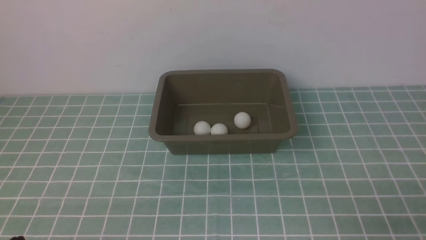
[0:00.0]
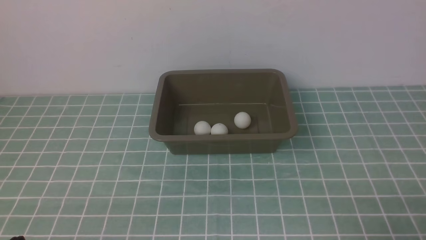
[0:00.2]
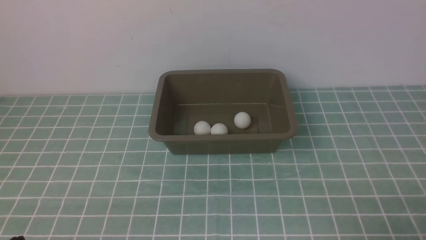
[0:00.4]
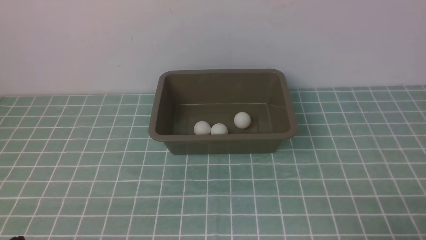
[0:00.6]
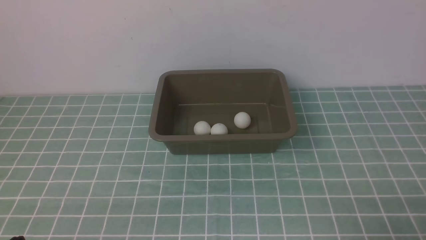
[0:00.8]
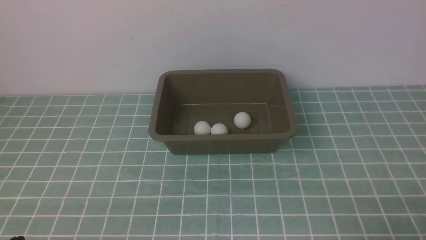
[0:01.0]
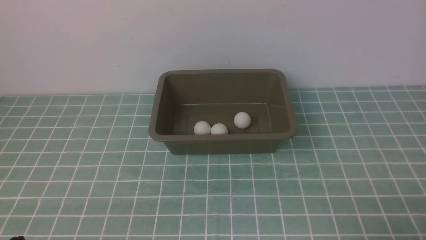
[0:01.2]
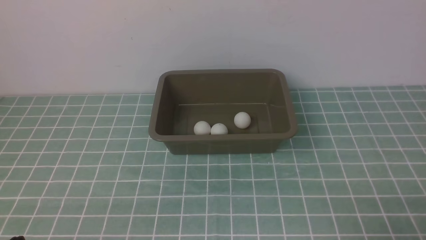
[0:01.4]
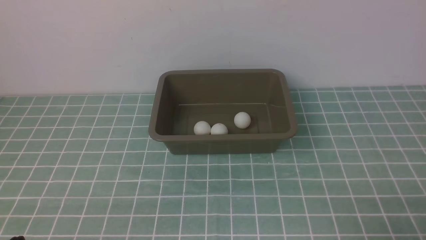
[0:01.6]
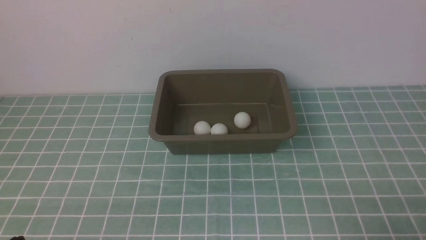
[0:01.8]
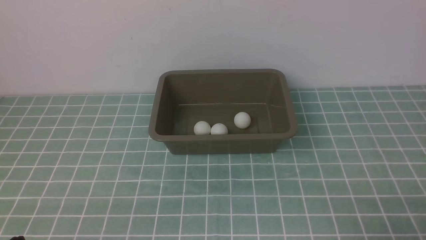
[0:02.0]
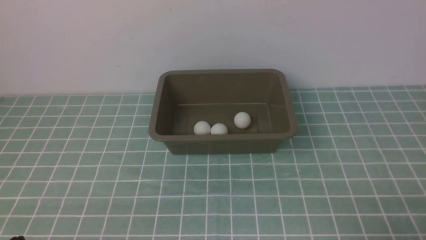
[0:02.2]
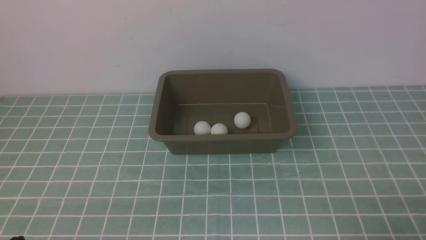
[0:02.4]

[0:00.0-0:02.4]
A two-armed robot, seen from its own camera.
1.2 to 2.4 s: Both grippers stay about where they are.

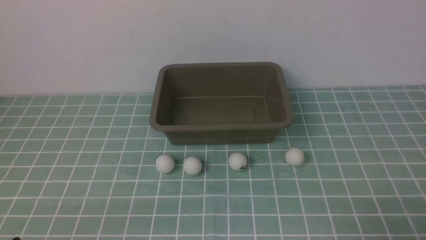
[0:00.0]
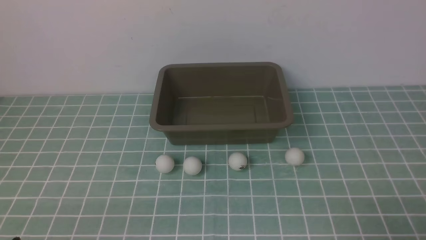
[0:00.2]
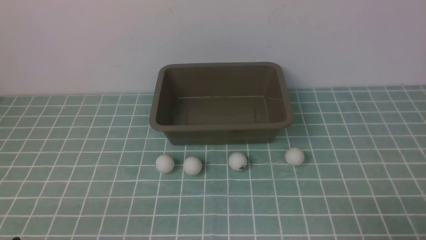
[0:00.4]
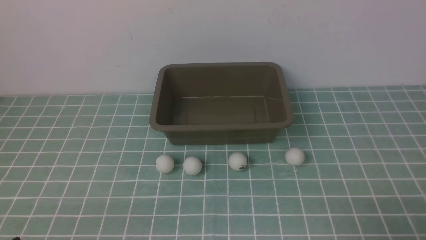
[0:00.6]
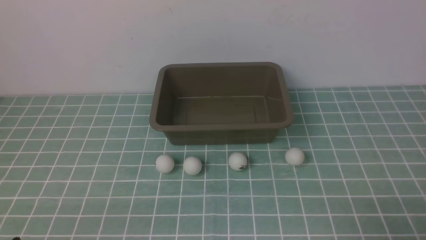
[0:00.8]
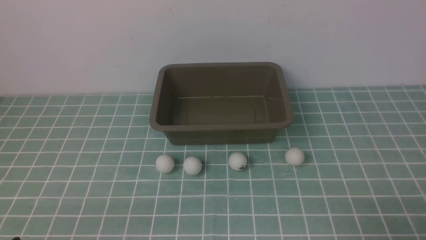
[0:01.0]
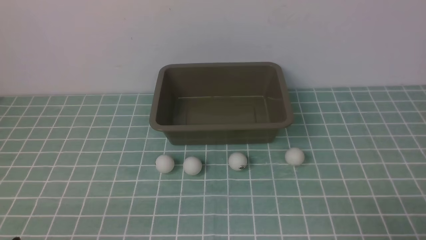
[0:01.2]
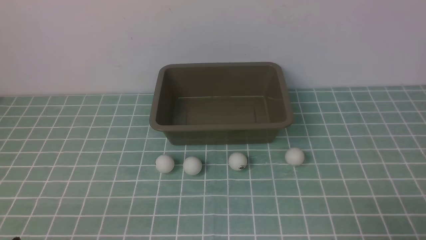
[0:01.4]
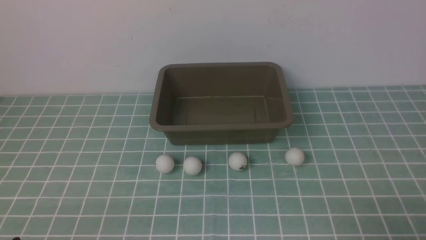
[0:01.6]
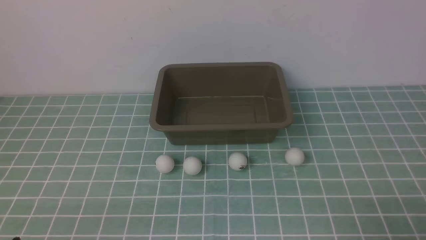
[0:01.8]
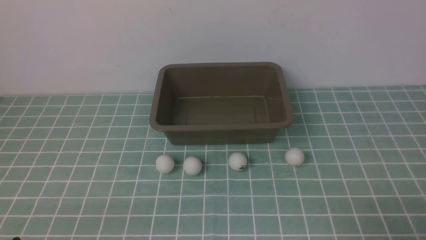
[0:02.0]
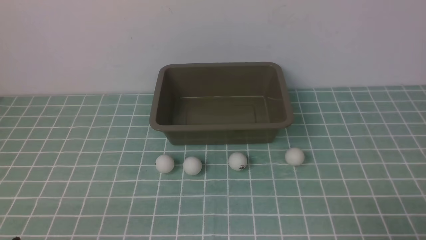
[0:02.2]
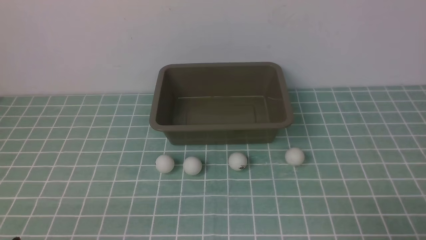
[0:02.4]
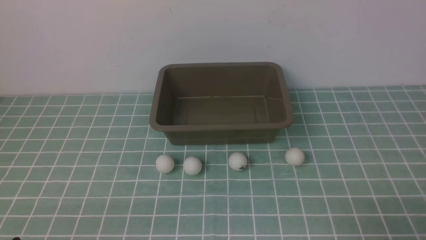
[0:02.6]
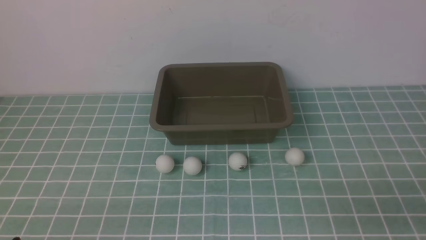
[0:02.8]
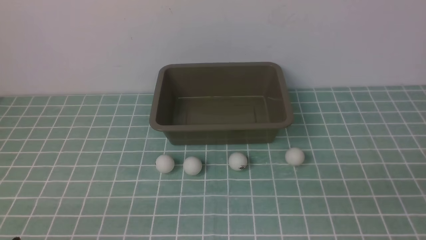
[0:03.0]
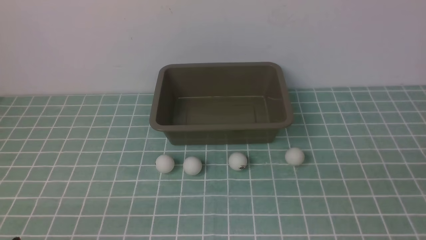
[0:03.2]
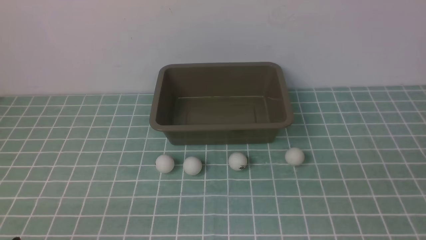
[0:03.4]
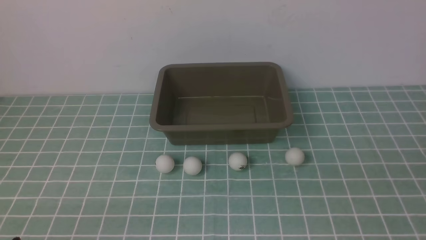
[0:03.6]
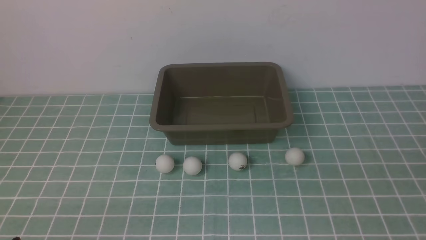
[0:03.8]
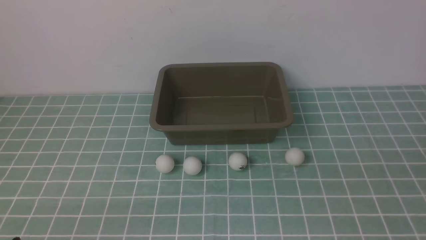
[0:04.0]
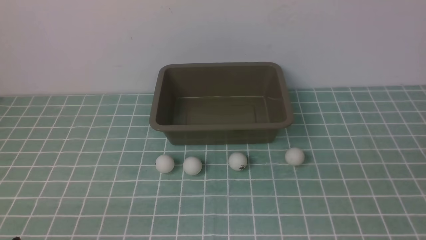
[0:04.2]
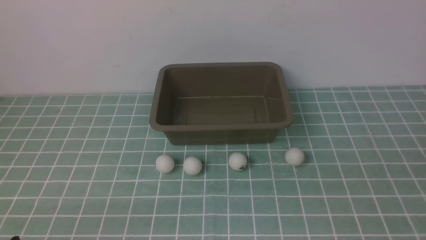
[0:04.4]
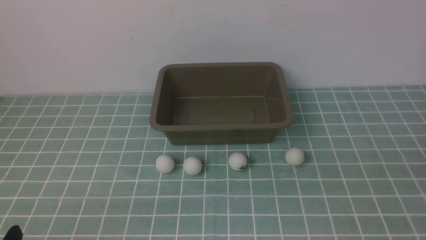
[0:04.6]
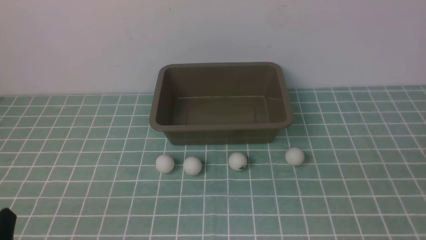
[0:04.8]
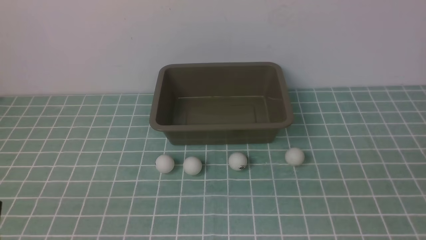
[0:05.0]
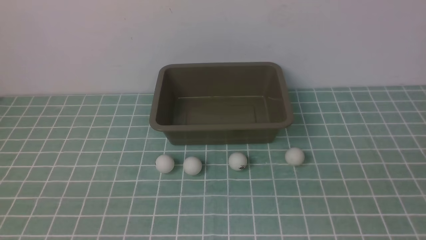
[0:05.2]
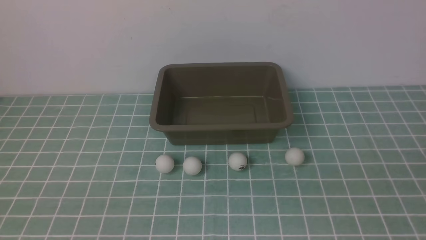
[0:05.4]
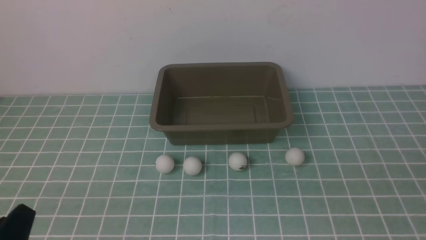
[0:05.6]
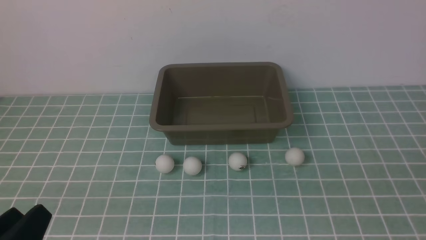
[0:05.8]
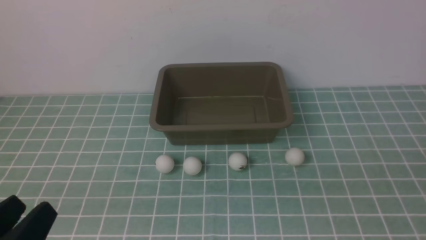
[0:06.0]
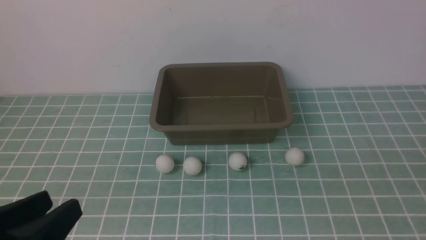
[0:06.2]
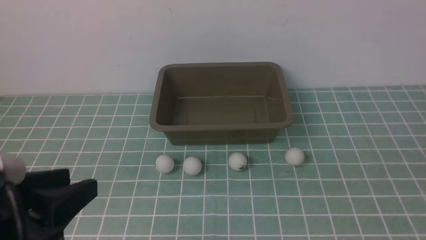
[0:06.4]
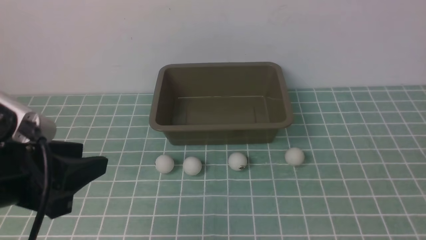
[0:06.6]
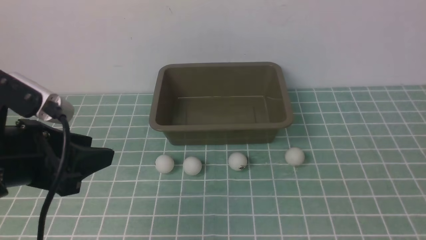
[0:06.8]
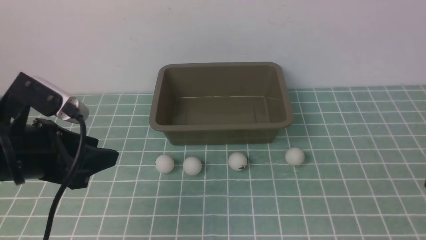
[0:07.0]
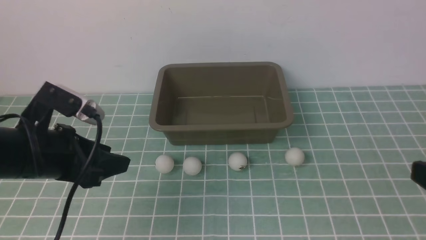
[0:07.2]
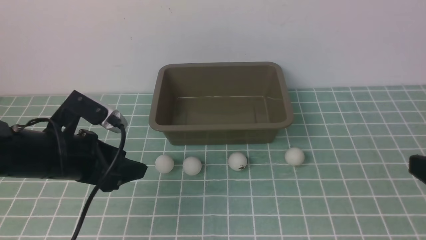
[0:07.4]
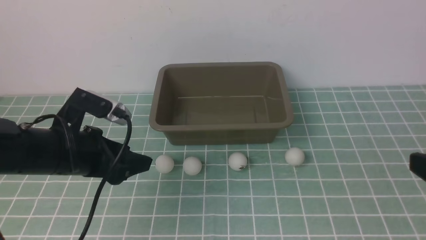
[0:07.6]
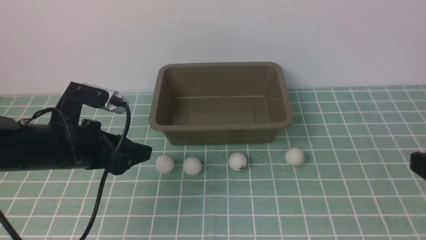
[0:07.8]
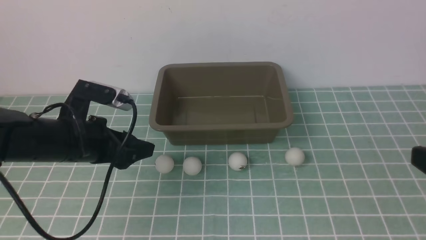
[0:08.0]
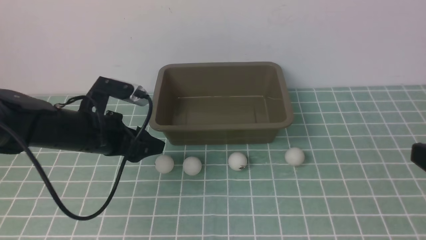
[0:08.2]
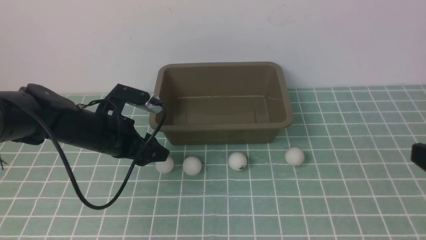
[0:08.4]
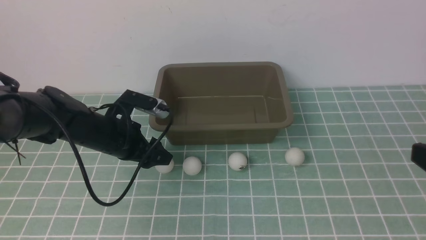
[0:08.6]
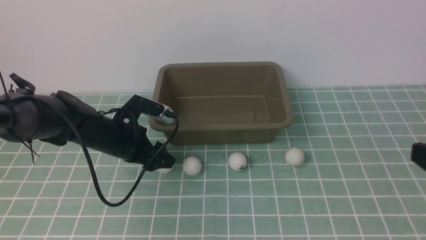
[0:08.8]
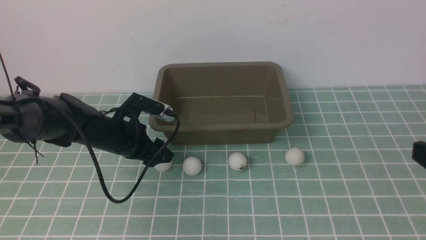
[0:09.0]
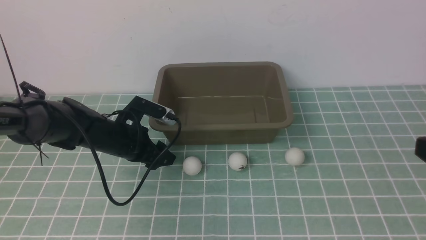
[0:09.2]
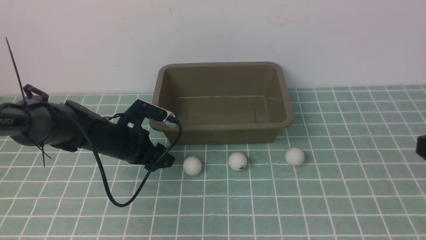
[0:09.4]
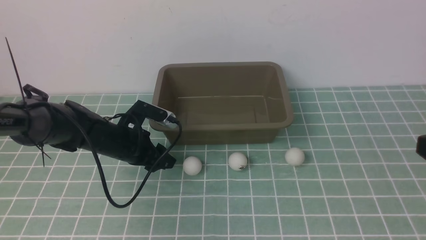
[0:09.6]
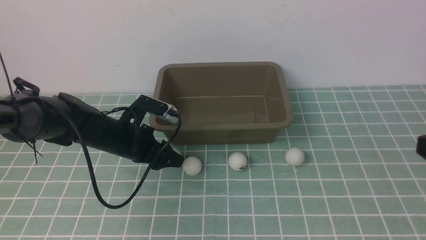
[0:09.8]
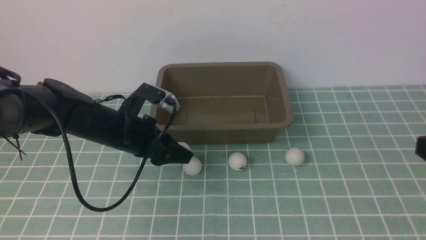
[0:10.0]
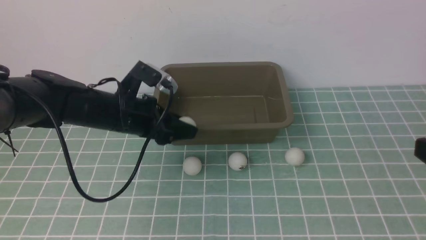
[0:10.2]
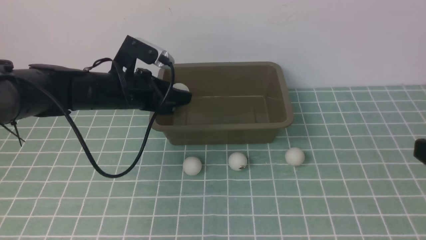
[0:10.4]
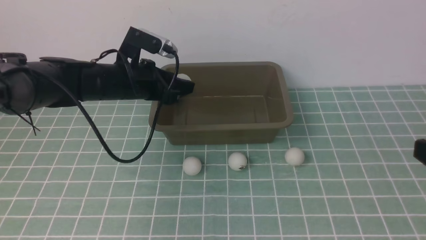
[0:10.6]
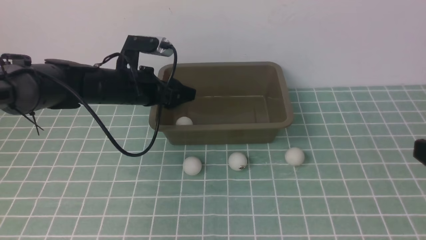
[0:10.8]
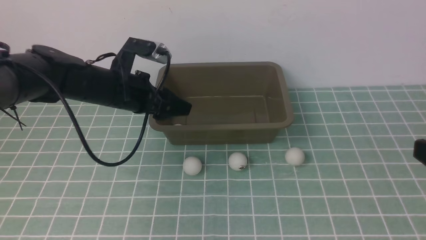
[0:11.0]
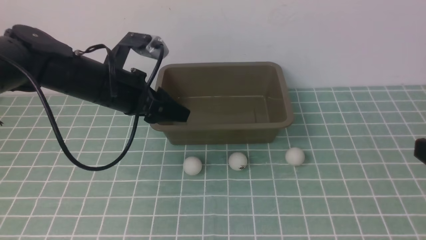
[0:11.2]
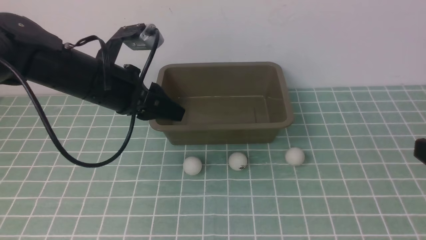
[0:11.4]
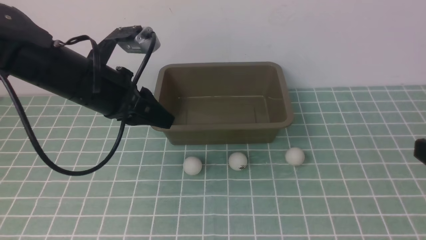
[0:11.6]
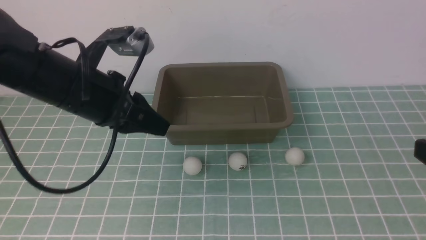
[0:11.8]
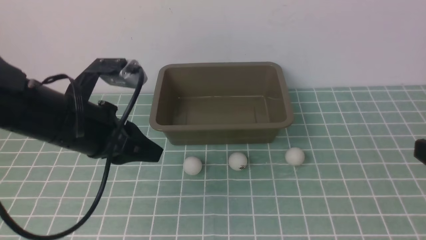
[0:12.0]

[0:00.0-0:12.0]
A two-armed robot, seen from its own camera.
Step, 0.0 to 9.8 s: use the left arm to clamp the table tennis ball closest to it.
Step, 10.2 to 11.0 s: use the left arm to put the table tennis ball into the box.
0.0 to 1.6 s: Both grippers stay put.
4.4 to 6.0 s: The left gripper travels upward by some 10 cm.
6.0 to 7.6 s: The left gripper travels forward by approximately 20 cm; the right gripper goes some 10 cm forward.
7.6 to 9.0 s: The left gripper travels forward and downward by approximately 15 cm.
9.0 to 10.4 s: The left gripper goes roughly 10 cm upward, and closes its fingers.
10.4 to 12.0 s: The left gripper is displaced backward by about 10 cm, and closes its fingers.

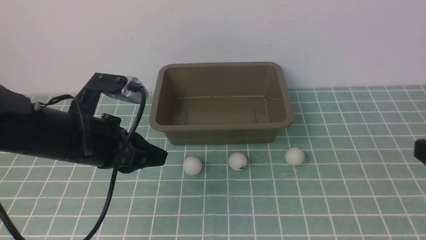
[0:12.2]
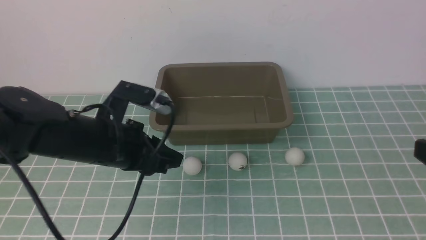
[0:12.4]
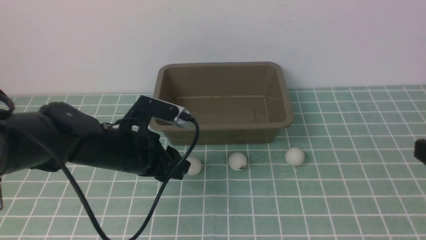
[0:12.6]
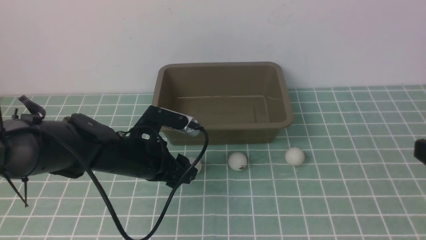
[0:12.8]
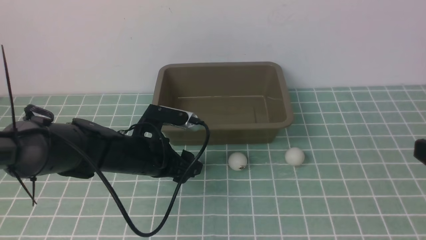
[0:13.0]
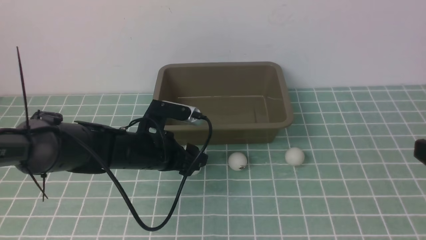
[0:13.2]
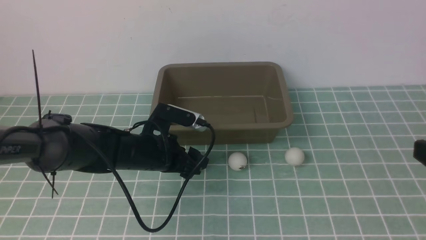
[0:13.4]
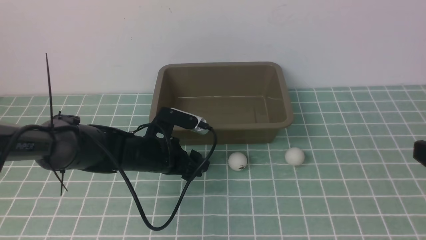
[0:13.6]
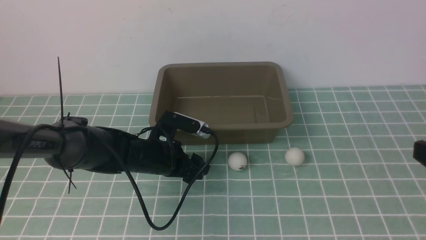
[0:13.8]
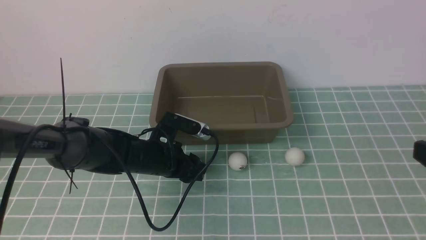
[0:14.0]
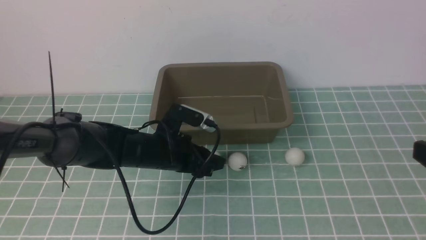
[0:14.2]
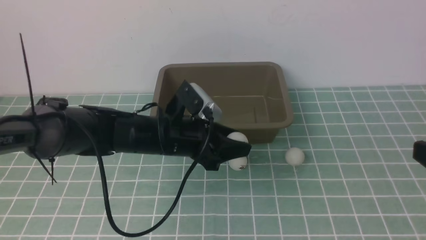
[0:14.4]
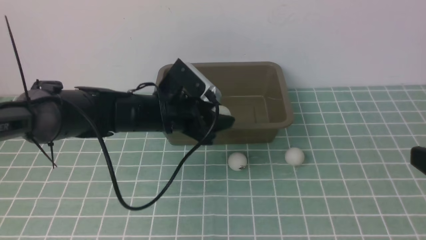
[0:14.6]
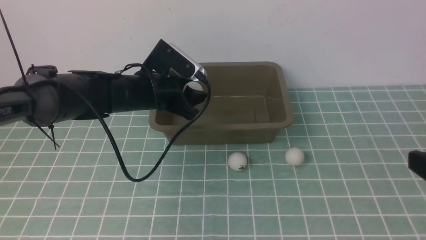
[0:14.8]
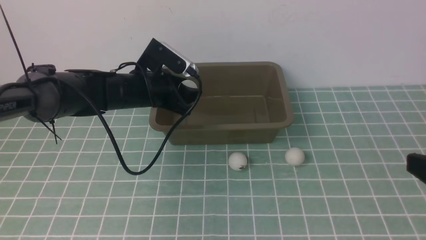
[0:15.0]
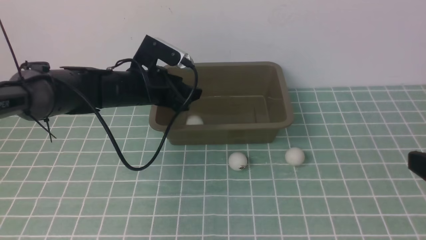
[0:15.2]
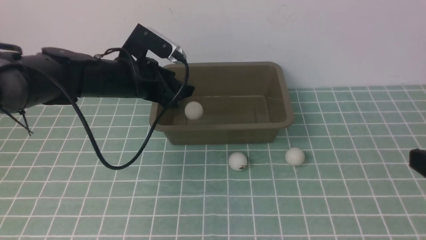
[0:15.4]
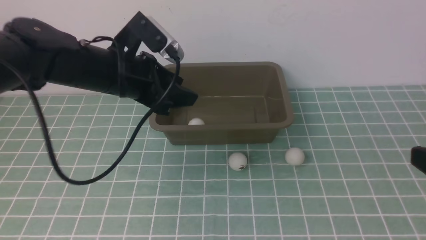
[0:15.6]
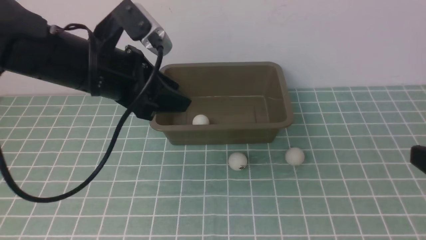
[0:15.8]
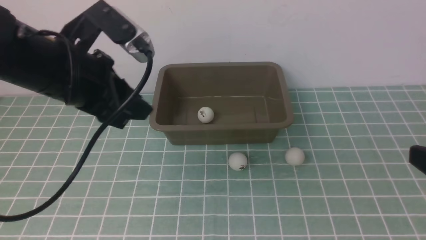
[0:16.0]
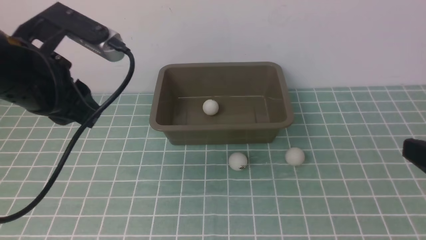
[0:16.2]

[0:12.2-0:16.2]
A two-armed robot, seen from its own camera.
Step, 12.2 to 14.2 s: use the left arm to clamp the table tennis ball closest to it.
Step, 14.4 to 15.2 s: use the left arm to put the table tennis ball into the box.
12.2 to 13.6 s: The left gripper is displaced downward and forward by roughly 15 cm, and opens its fingers.
13.6 to 14.8 s: The left gripper travels upward and forward by approximately 15 cm.
14.8 to 16.2 s: The right gripper shifts by some 5 cm. Meanwhile the left gripper moves backward, upward and to the left, some 20 cm, and closes.
